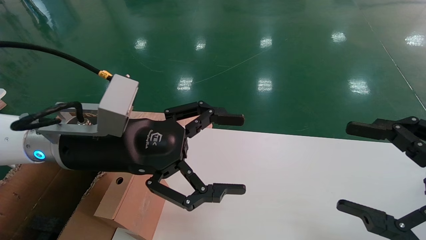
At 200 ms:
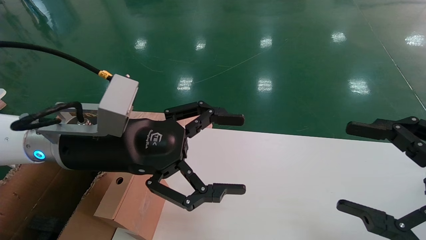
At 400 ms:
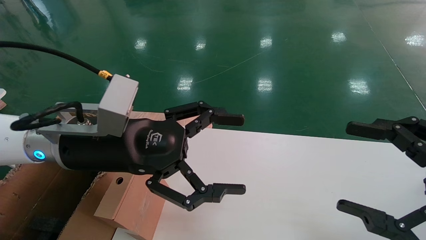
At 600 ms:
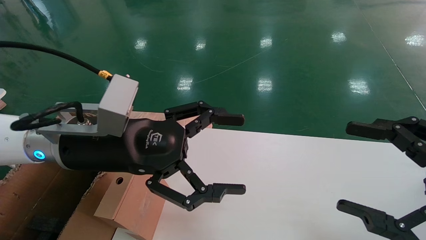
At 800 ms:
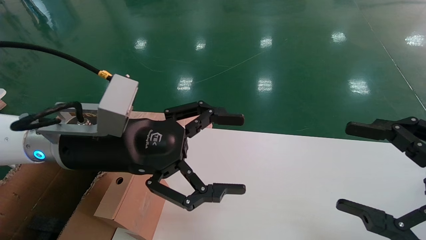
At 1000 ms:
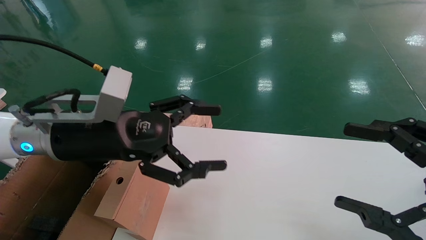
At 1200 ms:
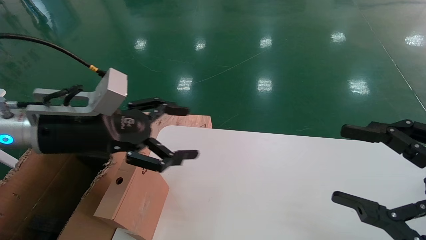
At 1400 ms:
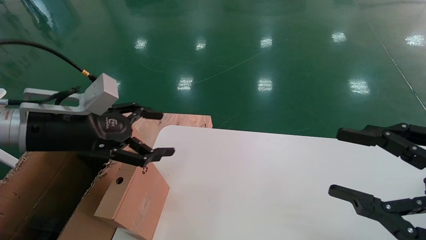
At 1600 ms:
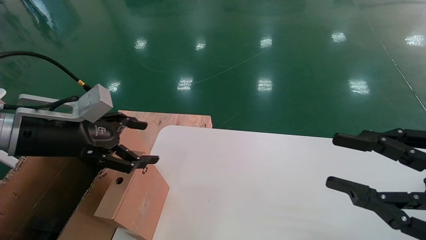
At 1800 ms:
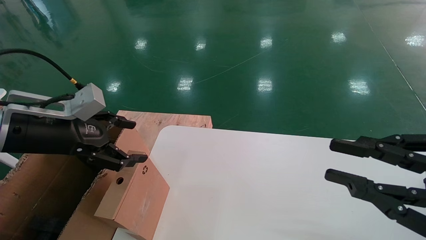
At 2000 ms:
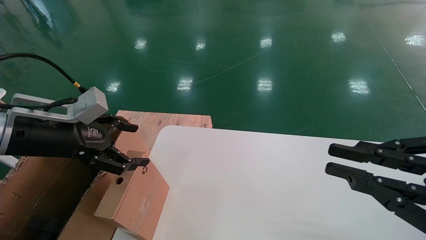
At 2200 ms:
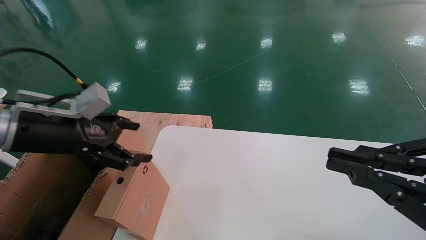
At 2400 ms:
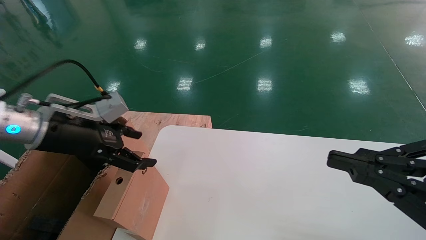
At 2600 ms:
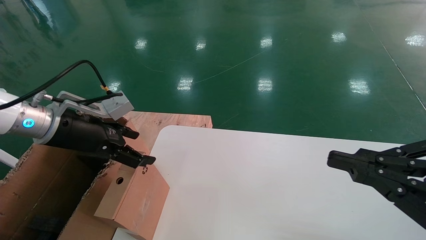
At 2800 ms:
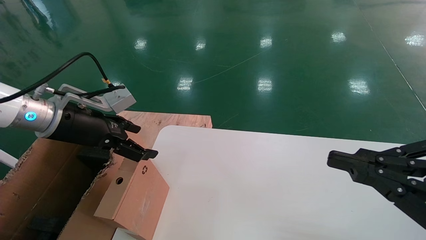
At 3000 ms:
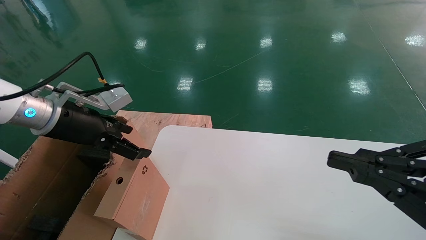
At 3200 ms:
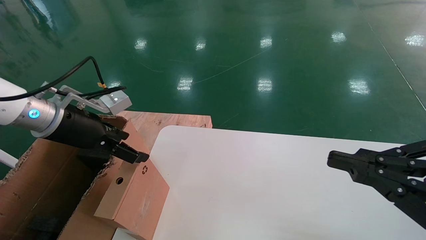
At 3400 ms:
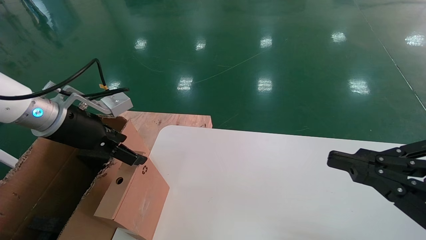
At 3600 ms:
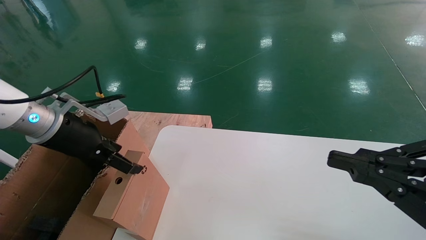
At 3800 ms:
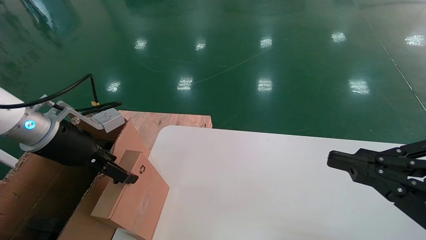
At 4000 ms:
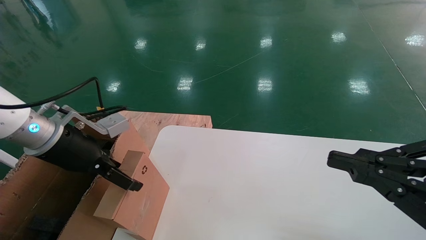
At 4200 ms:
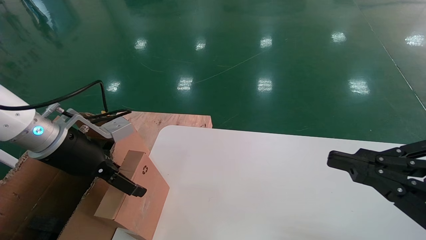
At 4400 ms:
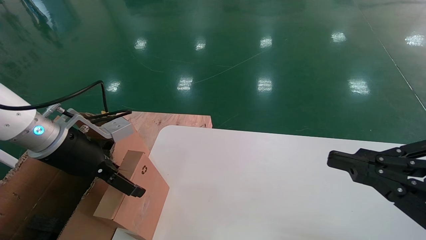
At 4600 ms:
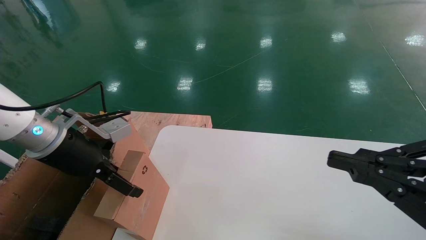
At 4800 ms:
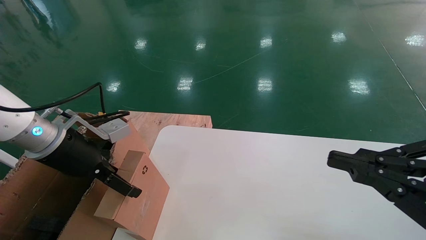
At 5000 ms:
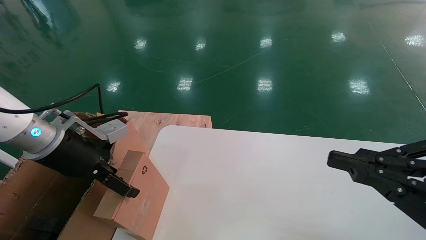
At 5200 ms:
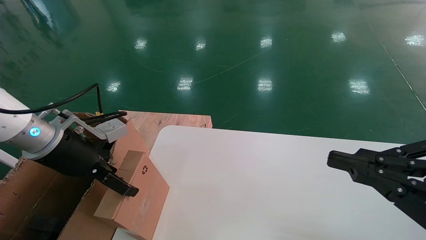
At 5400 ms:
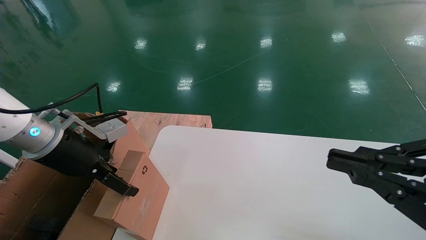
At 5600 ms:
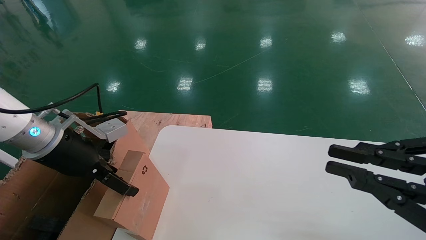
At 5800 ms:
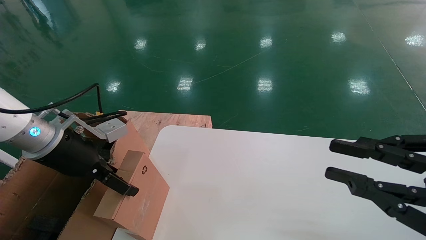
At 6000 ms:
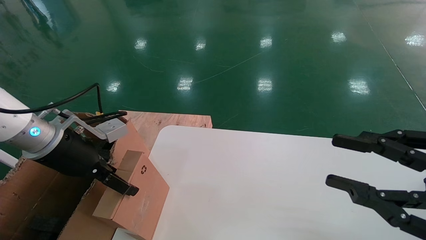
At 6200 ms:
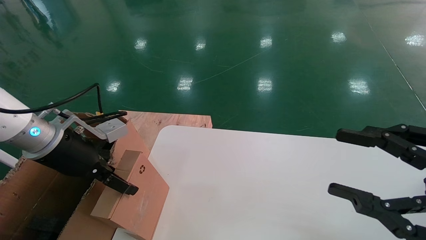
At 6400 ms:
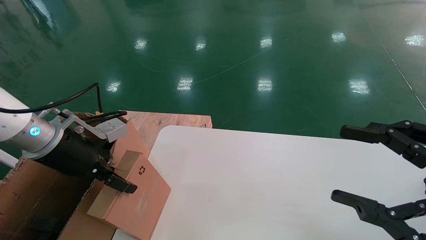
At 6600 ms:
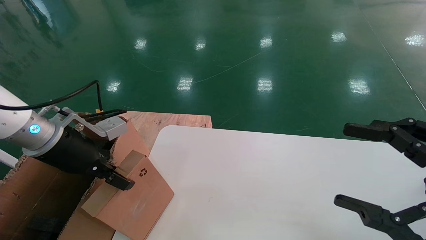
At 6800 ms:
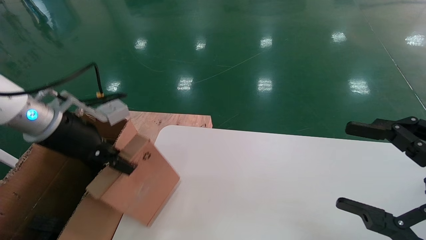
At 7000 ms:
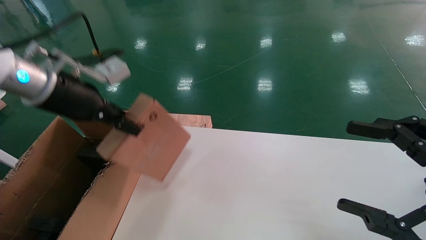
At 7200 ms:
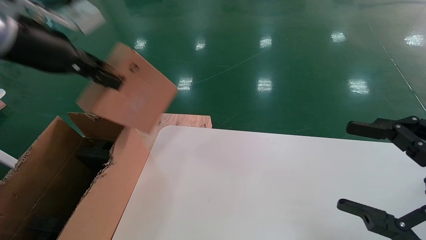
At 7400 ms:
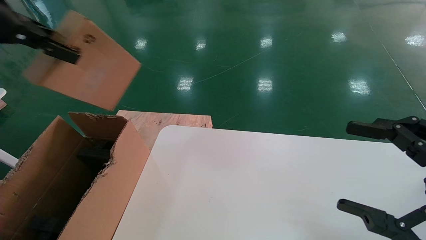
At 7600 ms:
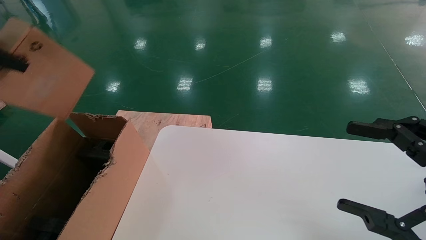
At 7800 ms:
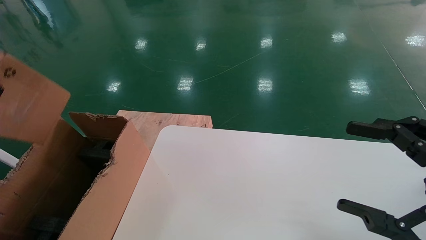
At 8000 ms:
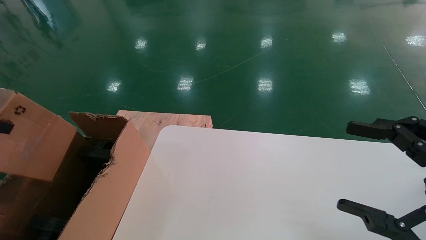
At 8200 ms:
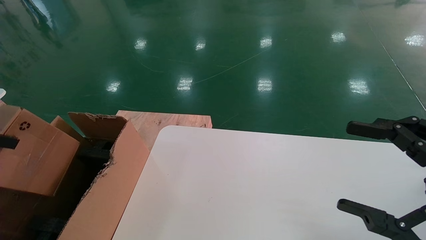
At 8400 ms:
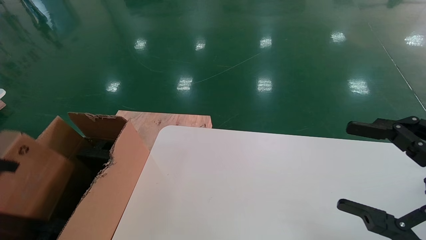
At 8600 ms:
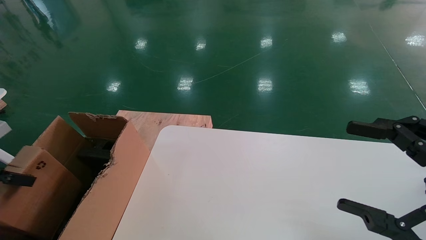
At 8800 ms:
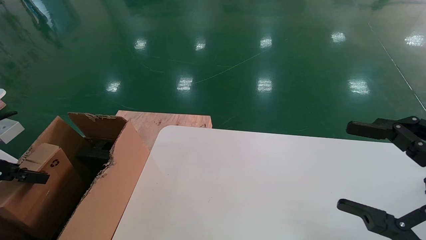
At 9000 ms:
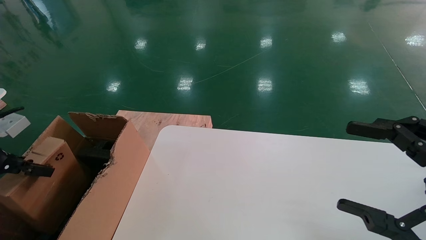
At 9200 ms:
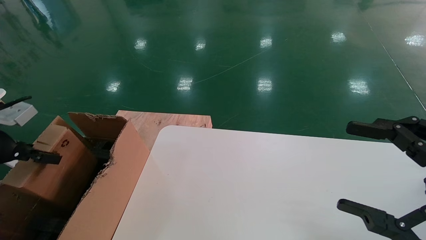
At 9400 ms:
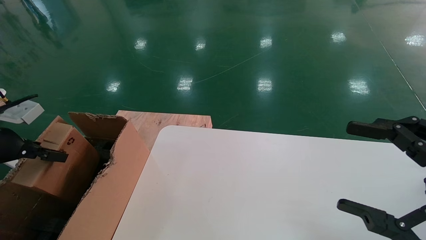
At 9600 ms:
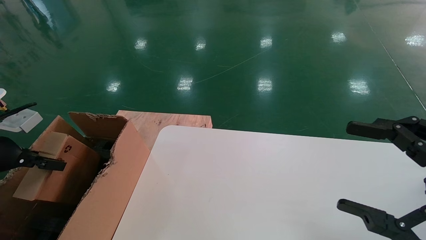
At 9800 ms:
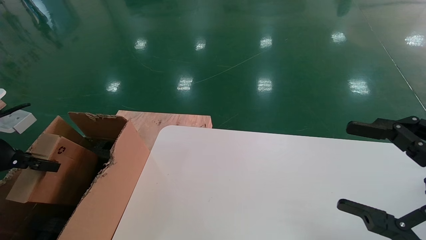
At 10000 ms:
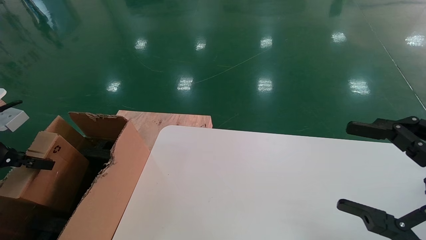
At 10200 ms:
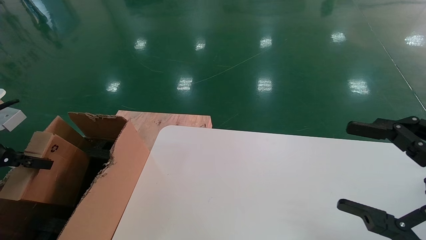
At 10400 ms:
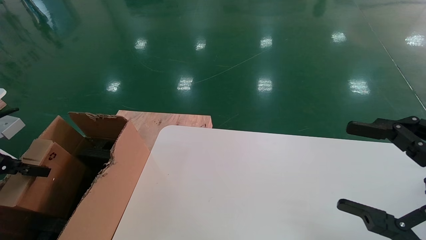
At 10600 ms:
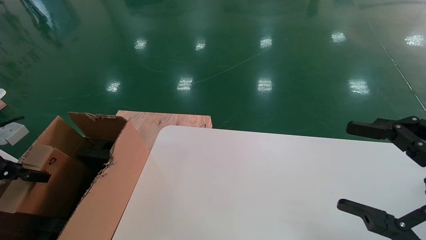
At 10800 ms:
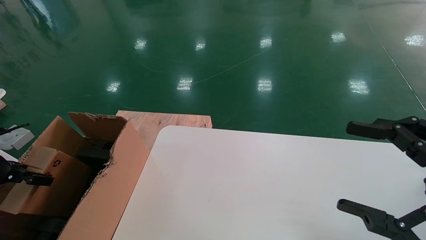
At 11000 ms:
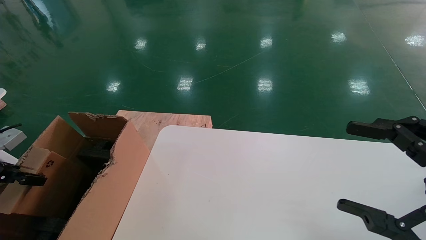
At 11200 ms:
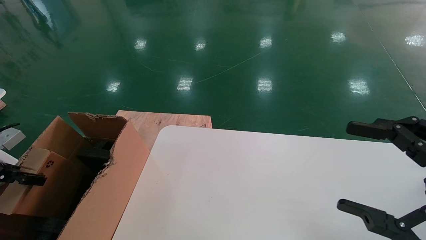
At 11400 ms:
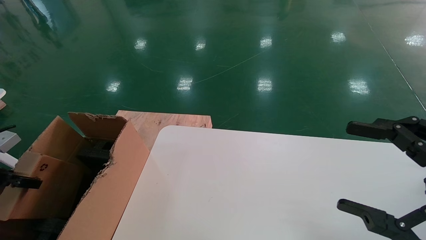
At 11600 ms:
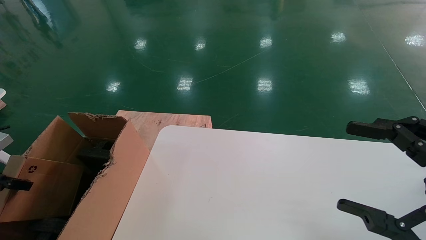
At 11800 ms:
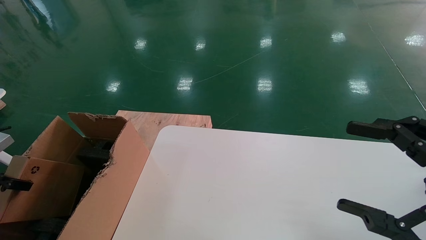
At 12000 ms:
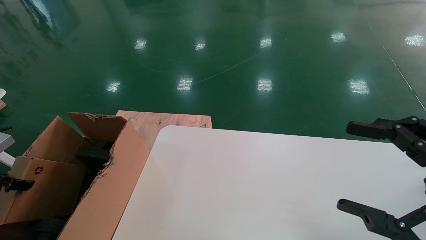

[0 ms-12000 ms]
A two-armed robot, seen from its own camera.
Task of the whole recording: place the small box on the table into the large box on the left.
Step, 1400 ms to 6600 ms: Pick up the mouse and the power cord paper box.
0 ms to 1600 ms: The left gripper moves to the left, some 10 cm. The right gripper closes.
1600 ms to 3000 ms: The left gripper shifts about 5 cm forward. Meanwhile the right gripper closes.
3000 ms to 4400 ms: The grippers make only small movements.
4400 ms to 6000 ms: Both grippers stay put.
6000 ms to 7600 ms: The left gripper shifts some 25 cm upward and to the left, and closes its fingers; the right gripper opens.
7600 ms to 9000 ms: The left gripper is displaced downward by approximately 20 cm.
9000 ms to 10400 ms: The grippers make only small movements.
10400 ms to 12000 ms: The left gripper shifts approximately 5 cm to the left.

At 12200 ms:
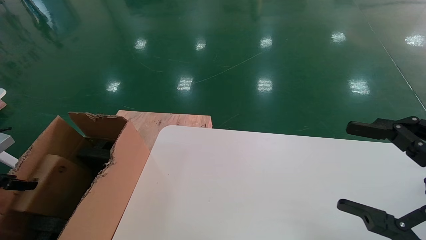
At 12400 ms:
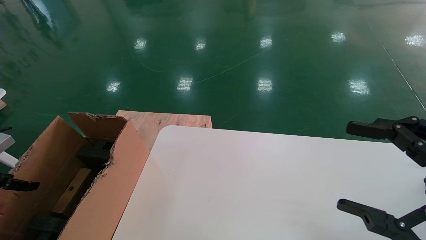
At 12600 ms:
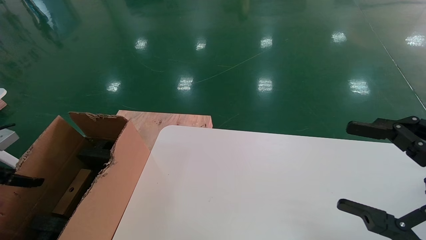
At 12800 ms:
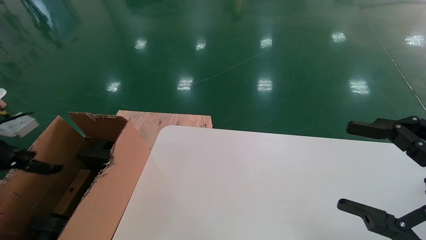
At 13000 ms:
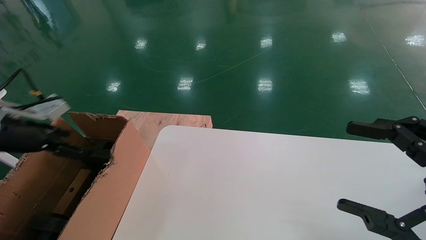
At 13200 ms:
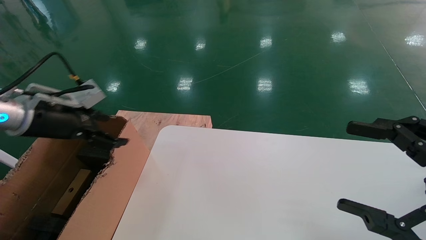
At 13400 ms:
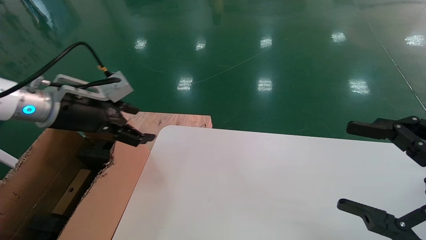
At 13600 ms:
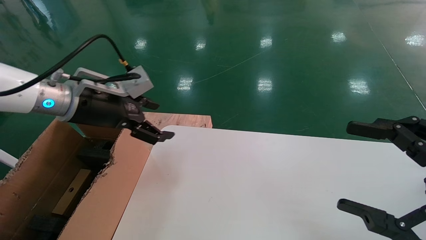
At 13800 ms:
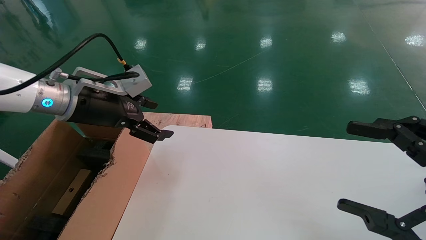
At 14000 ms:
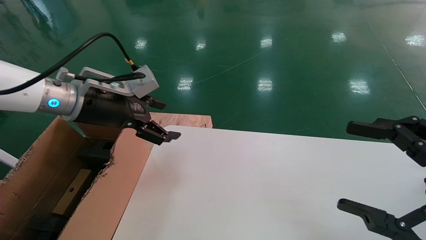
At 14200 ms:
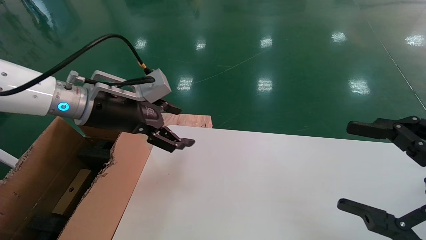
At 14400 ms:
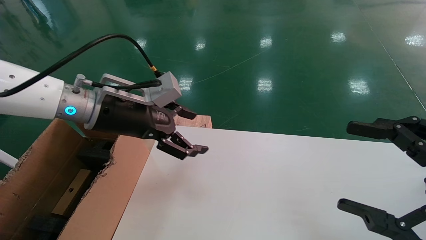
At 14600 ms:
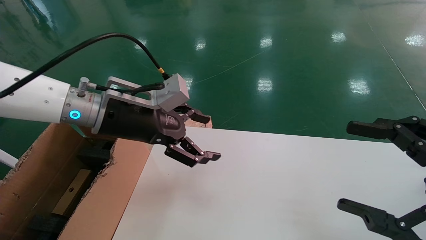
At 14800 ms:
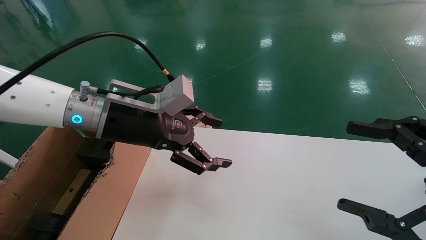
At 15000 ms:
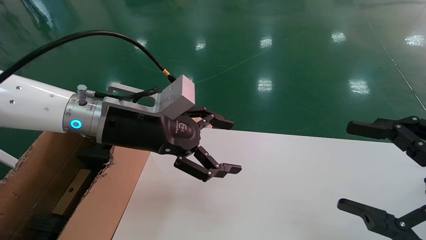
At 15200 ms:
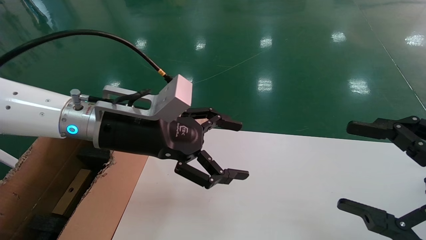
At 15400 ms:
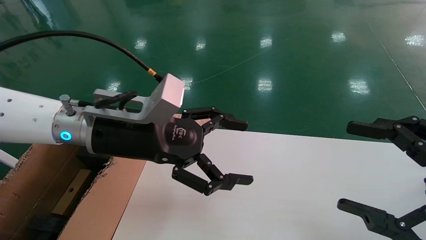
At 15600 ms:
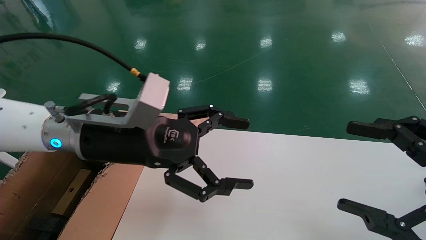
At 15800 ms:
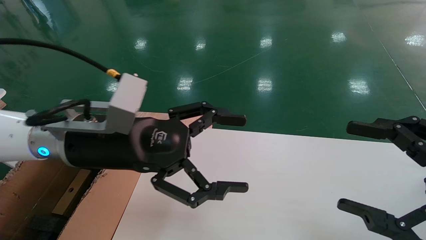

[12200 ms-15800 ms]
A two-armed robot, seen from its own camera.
Task of the whole recording: place the small box on the table into the large box on the left.
12200 ms to 14000 ms: The left gripper heads to the right and upward, covering some 30 cm, and opens.
14000 ms to 15800 ms: The left gripper heads to the right and backward, covering approximately 10 cm.
